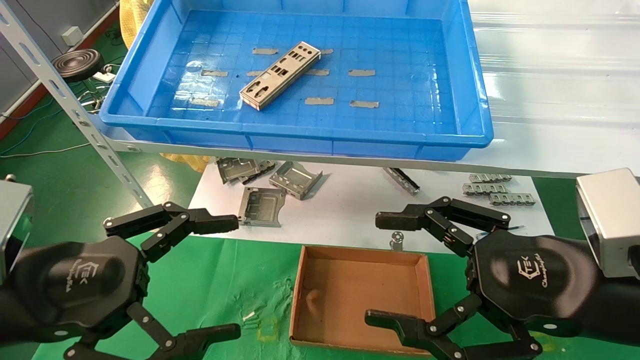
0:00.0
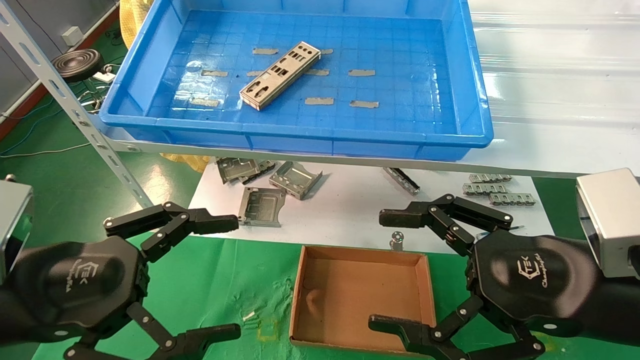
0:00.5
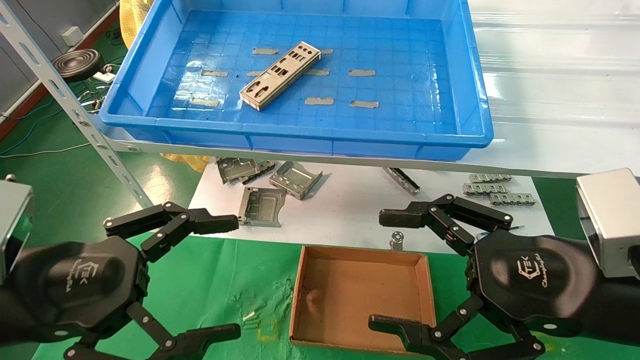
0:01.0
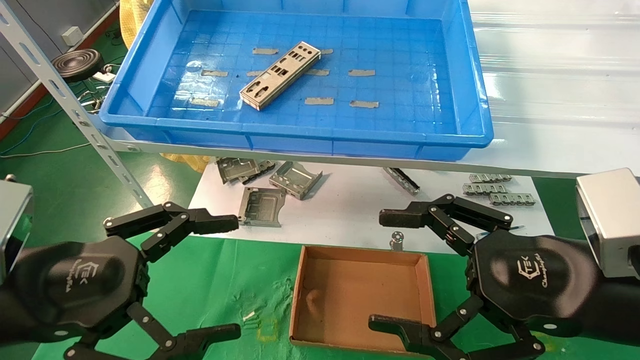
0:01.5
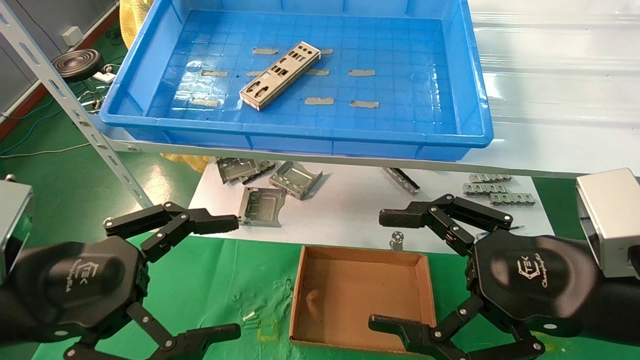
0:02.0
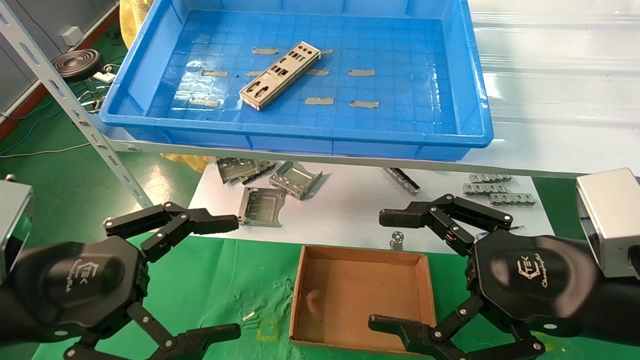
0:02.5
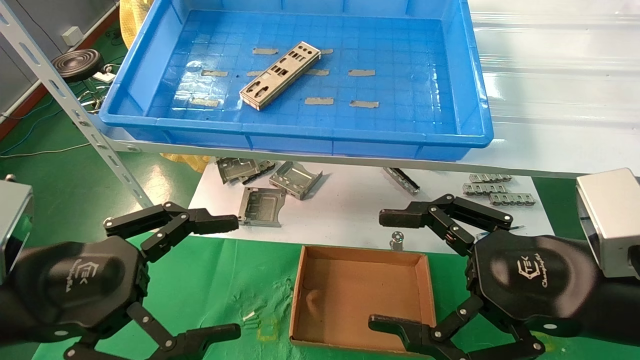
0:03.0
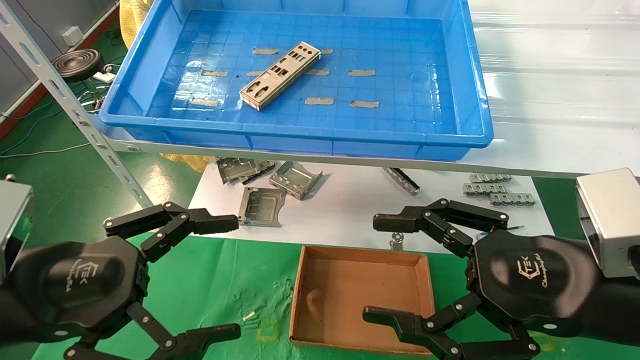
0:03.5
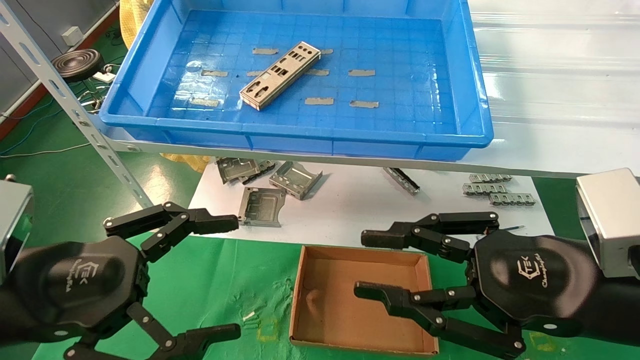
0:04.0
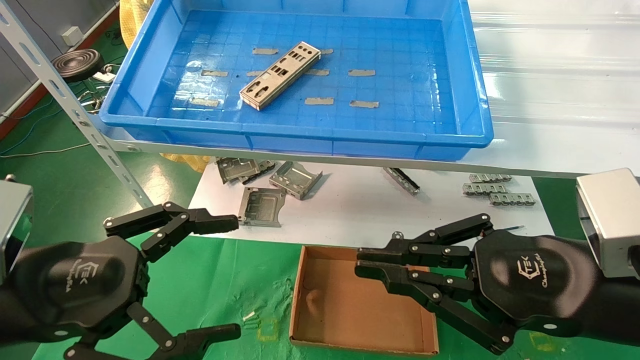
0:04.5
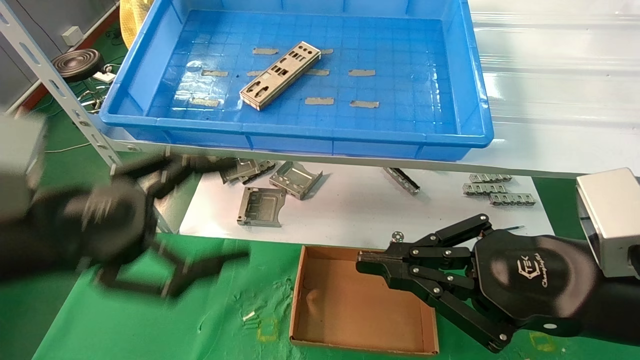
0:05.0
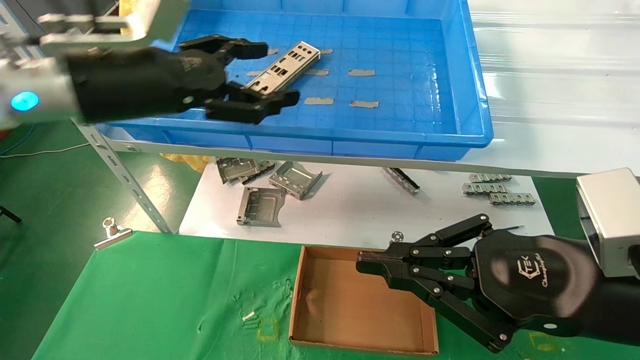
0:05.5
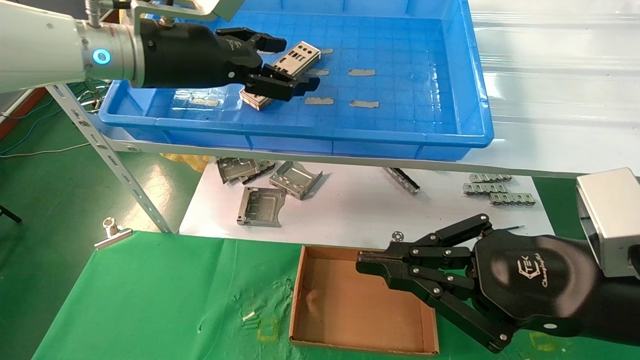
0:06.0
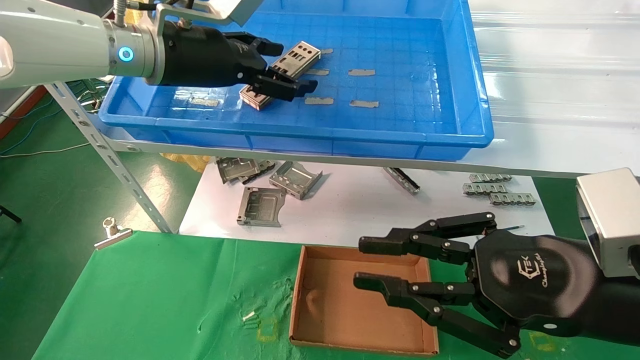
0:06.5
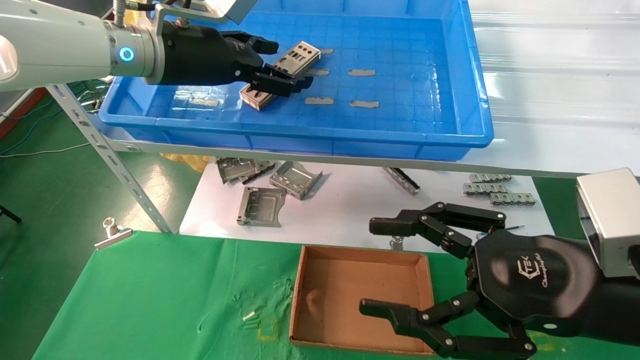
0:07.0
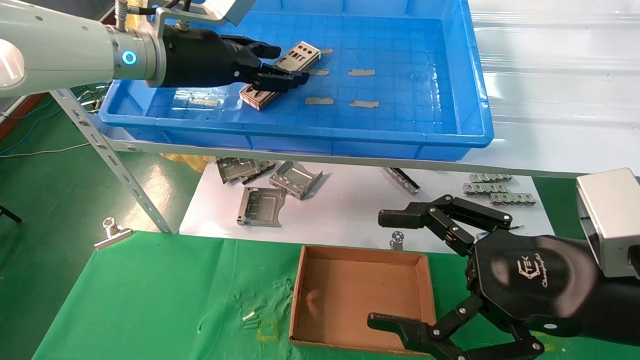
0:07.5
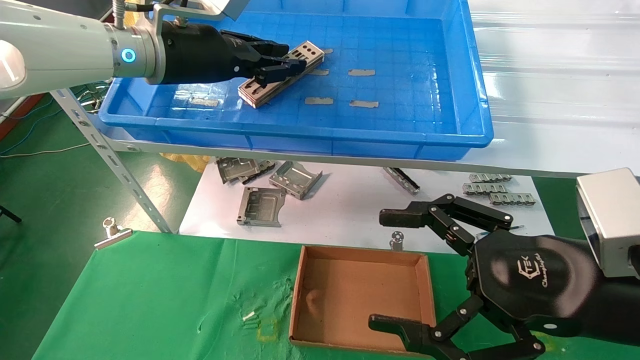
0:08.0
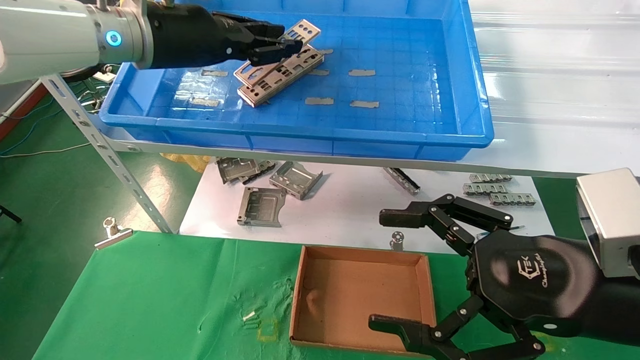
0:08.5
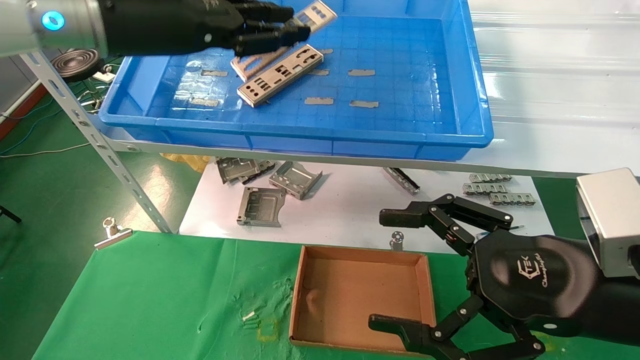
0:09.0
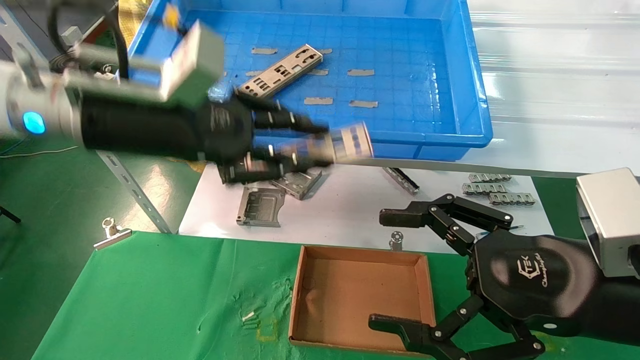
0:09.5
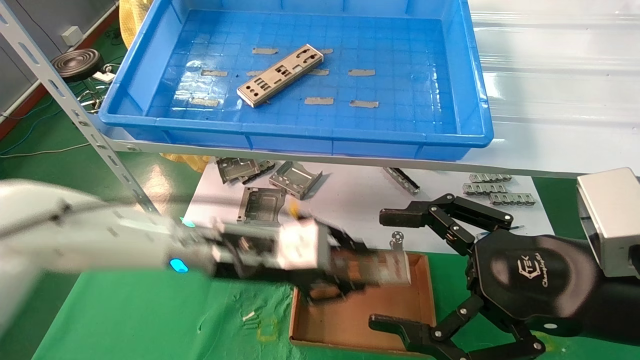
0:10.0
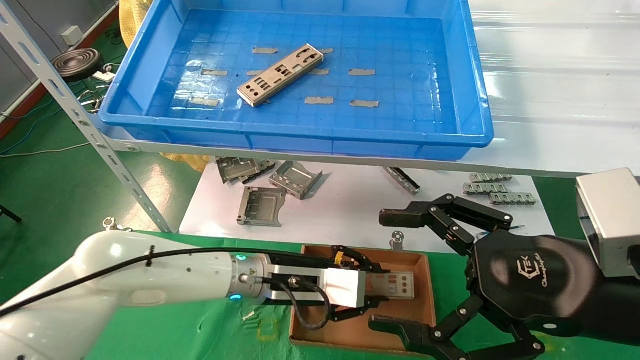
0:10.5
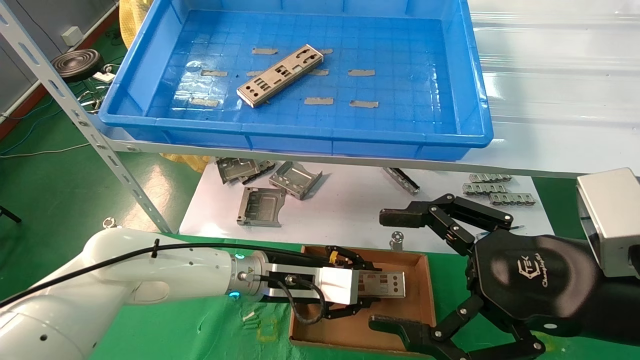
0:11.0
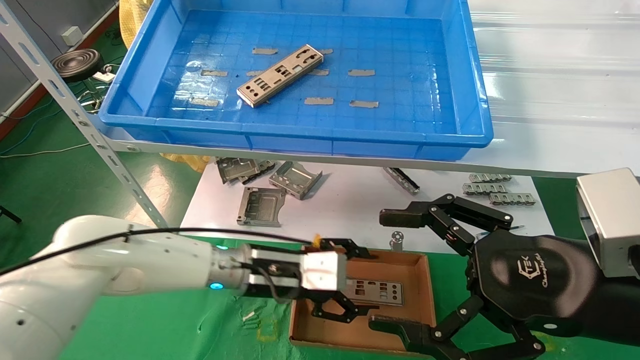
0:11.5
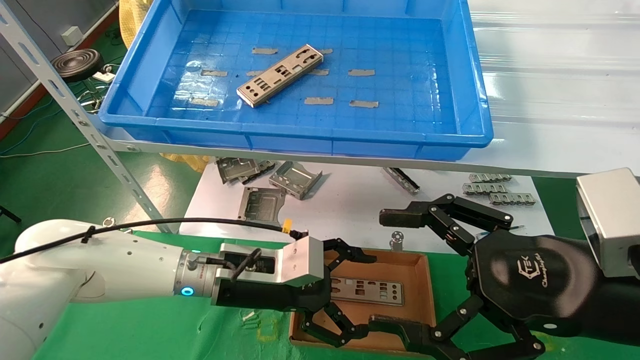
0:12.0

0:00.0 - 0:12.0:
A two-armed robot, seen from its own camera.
Task of the whole recording: pick up the parts on the tray and put them in the cardboard box.
Step, 0:05.5 - 0:08.0: Pick up the IO bracket from the container box.
Step, 0:08.5 - 0:11.0: Place the IO bracket into the ingredient slot.
0:00.0 - 0:02.0: Neither gripper changes place.
0:02.0 - 0:04.0: The right gripper closes up.
0:04.0 - 0:06.0: The left gripper moves forward, upward and to the right, roughly 30 cm. Meanwhile the right gripper closes up.
0:06.0 - 0:08.0: The right gripper opens up. The left gripper closes.
0:08.0 - 0:10.0: The left gripper shifts about 20 cm downward.
0:10.0 - 0:12.0: The left gripper moves downward, roughly 5 cm, and opens up.

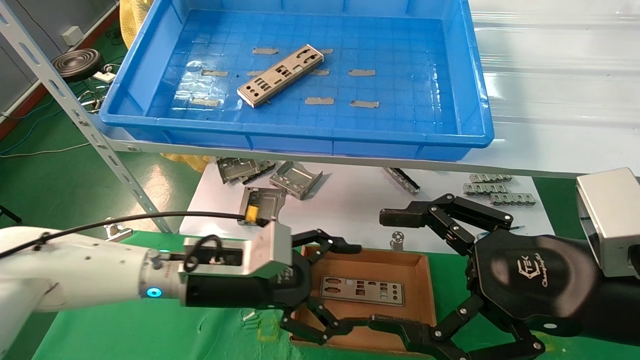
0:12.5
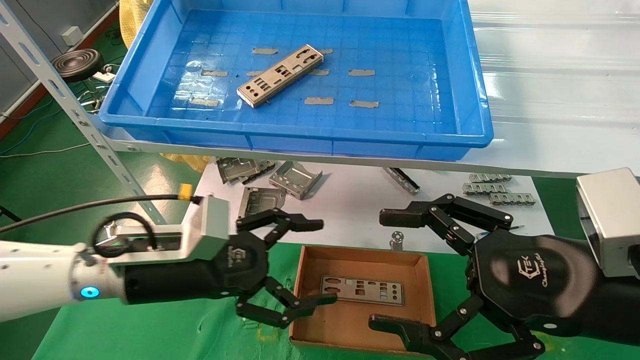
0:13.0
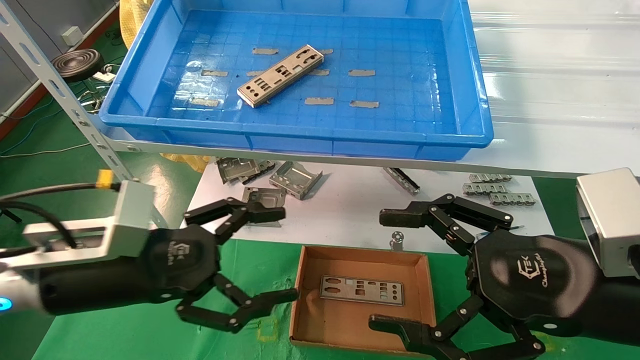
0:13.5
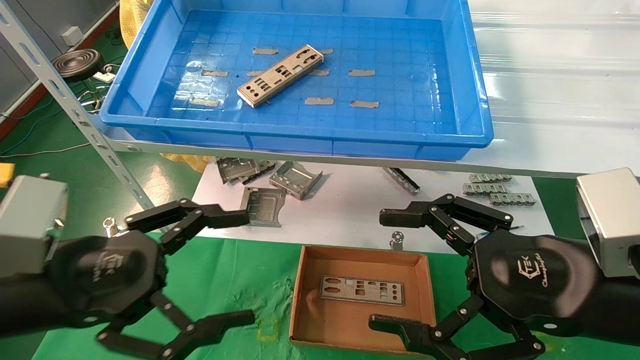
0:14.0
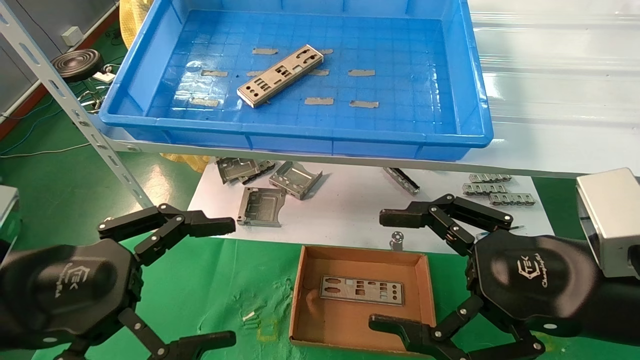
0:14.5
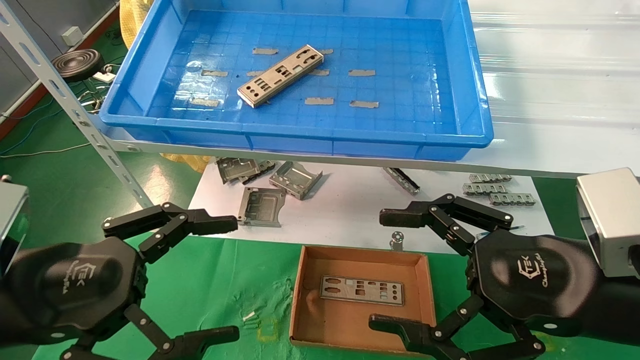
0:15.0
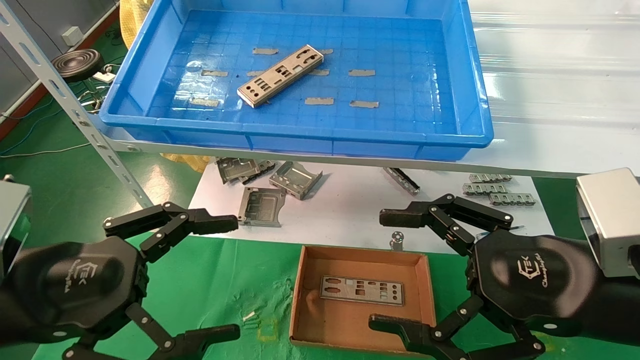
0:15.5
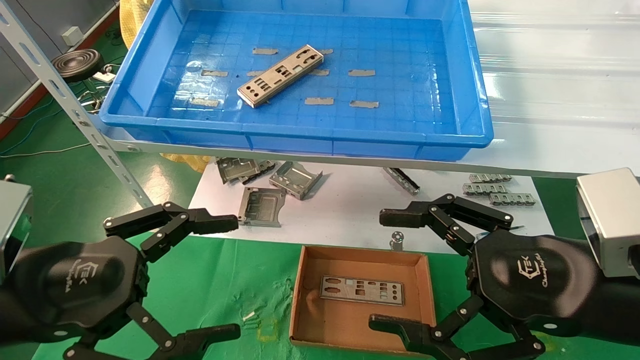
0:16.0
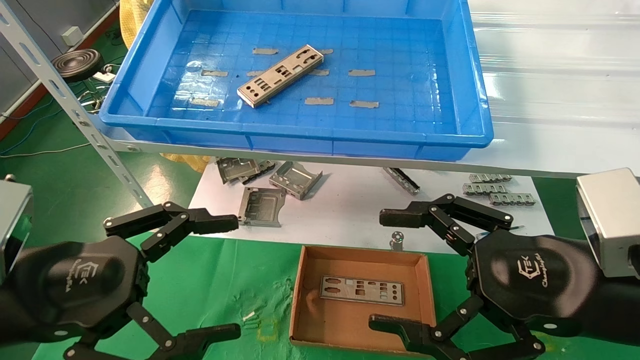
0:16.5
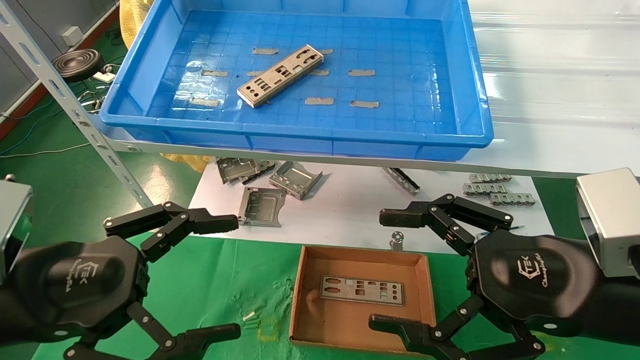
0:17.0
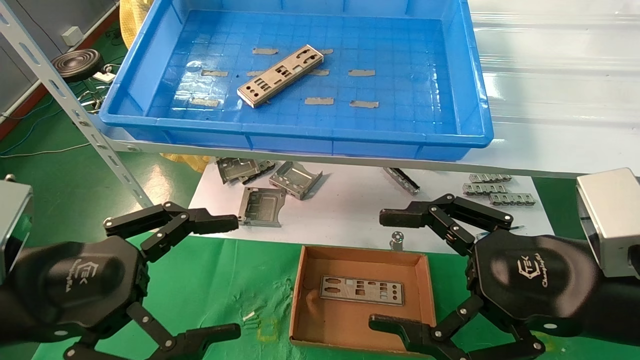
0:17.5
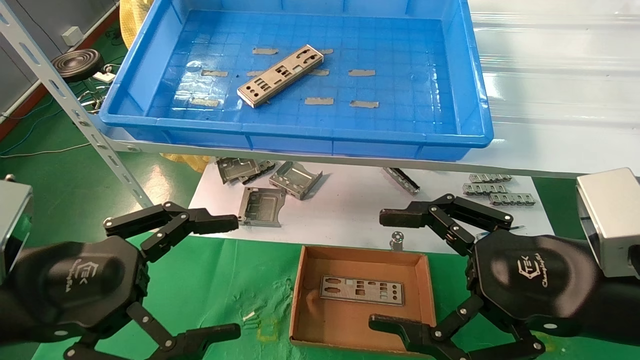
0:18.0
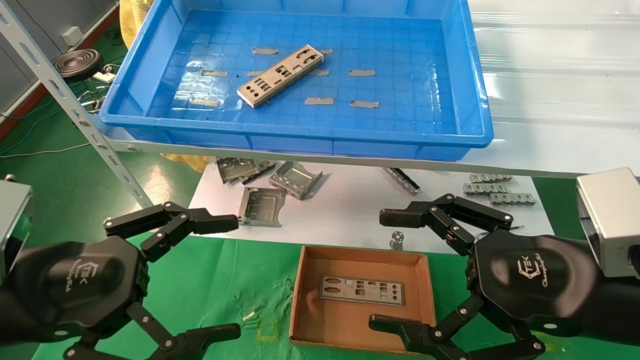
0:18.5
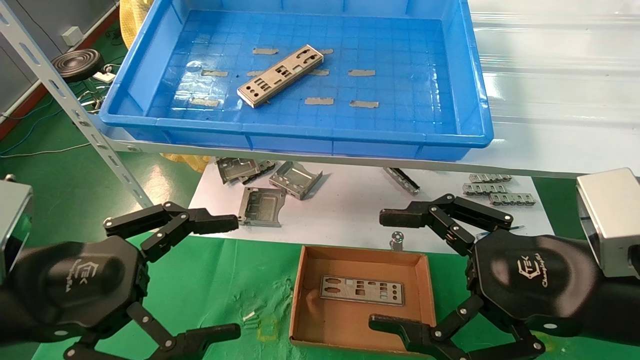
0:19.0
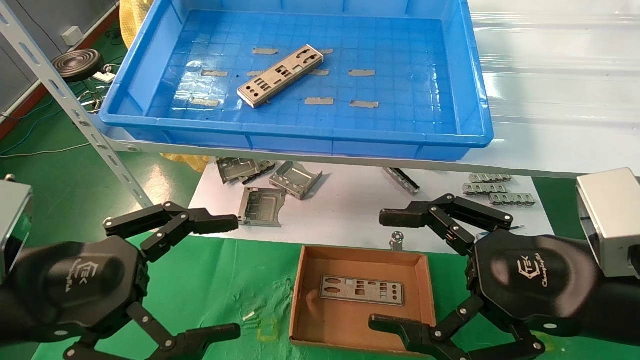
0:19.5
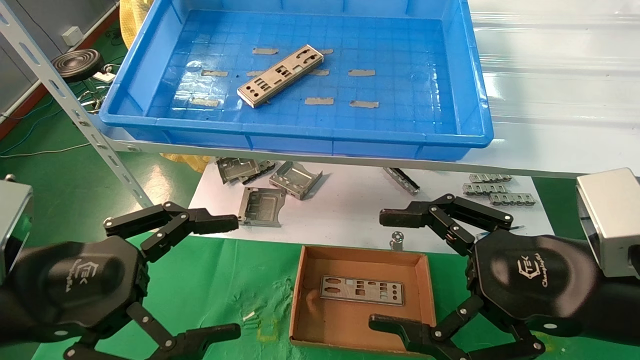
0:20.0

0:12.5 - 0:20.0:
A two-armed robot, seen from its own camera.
Task of the whole recording: pick up the parts on the tray and put them in the cardboard box.
0:12.5 - 0:14.5: The left gripper goes roughly 20 cm backward, to the left and upward.
0:14.5 - 0:20.0: Both grippers stay about where they are.
